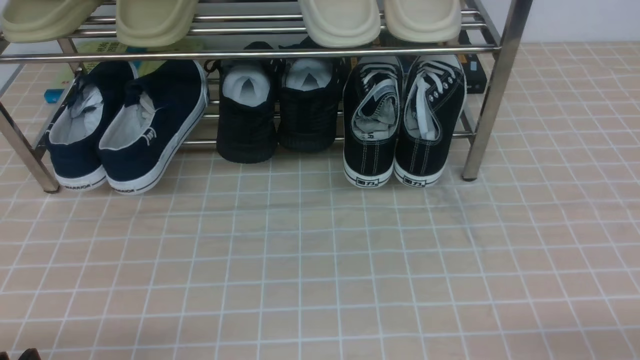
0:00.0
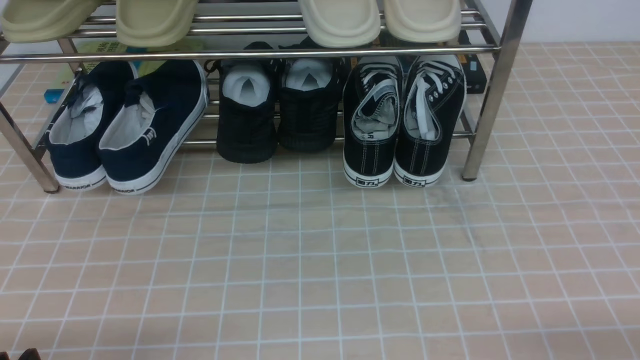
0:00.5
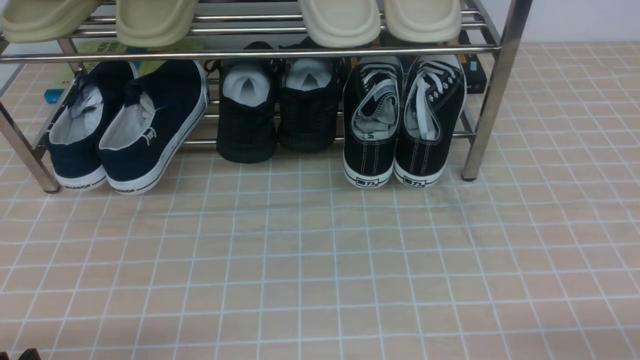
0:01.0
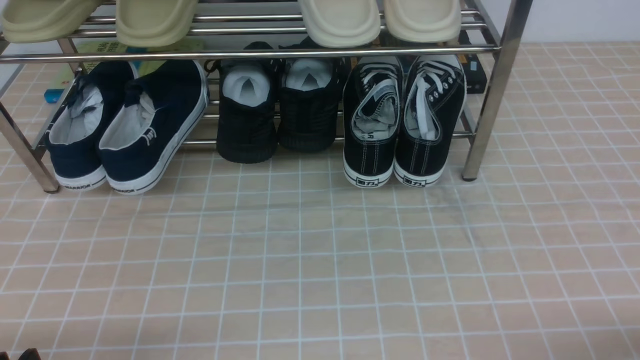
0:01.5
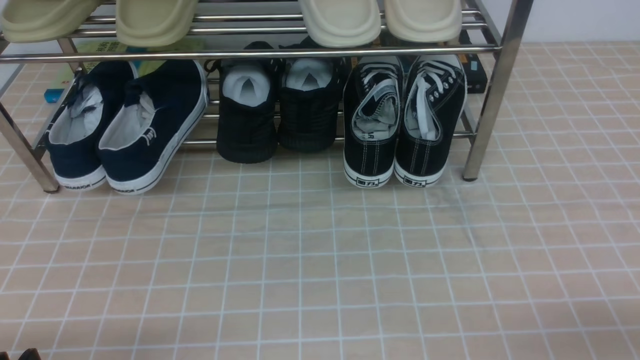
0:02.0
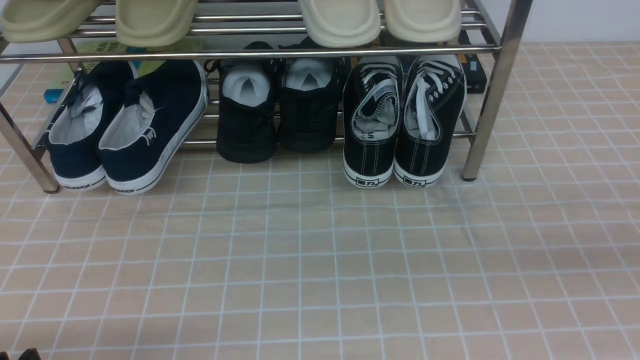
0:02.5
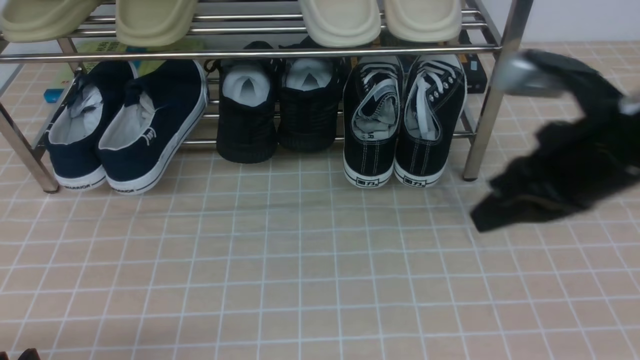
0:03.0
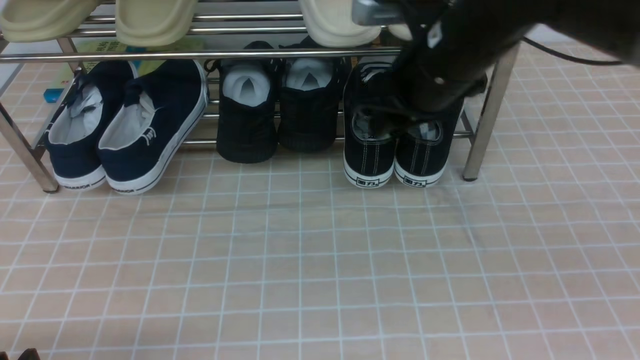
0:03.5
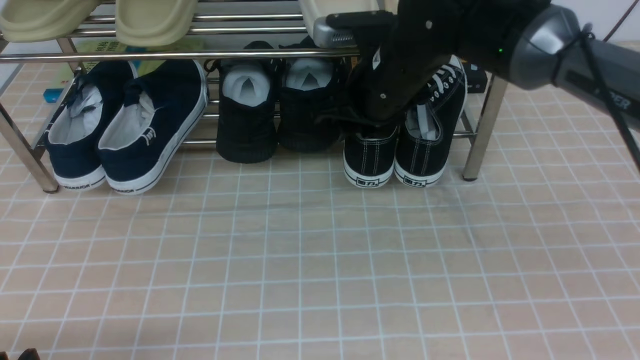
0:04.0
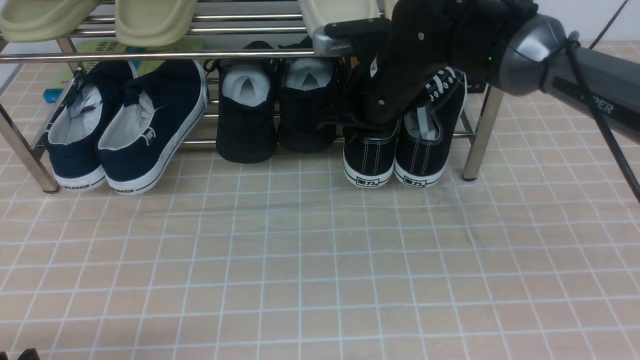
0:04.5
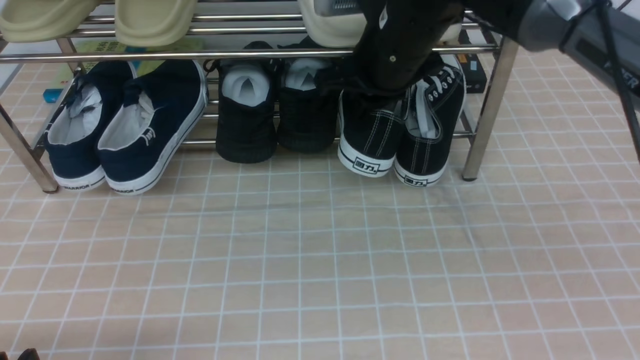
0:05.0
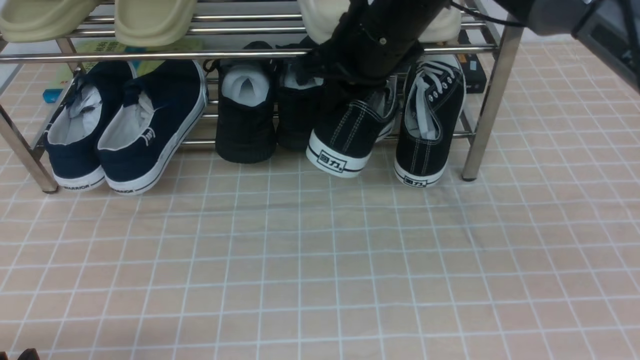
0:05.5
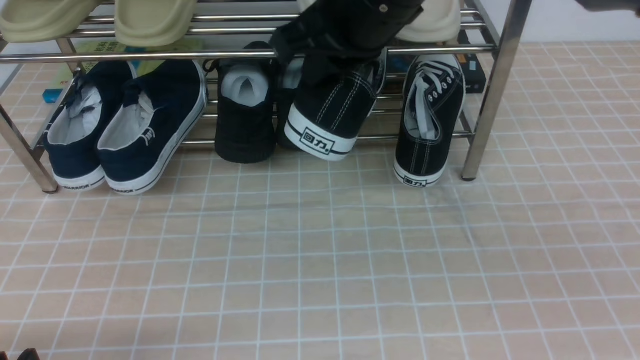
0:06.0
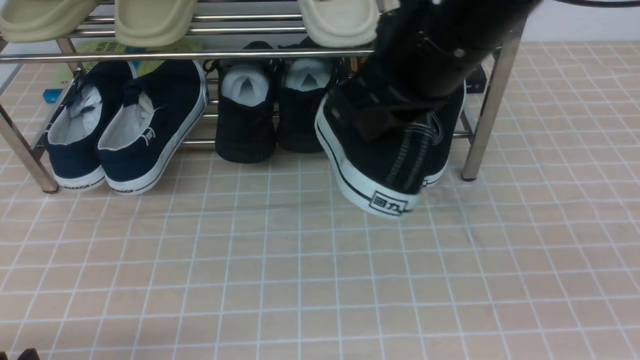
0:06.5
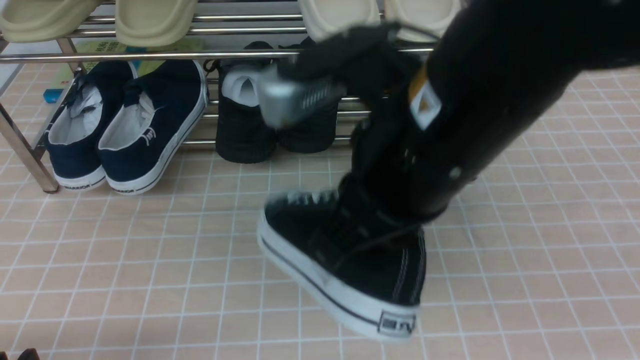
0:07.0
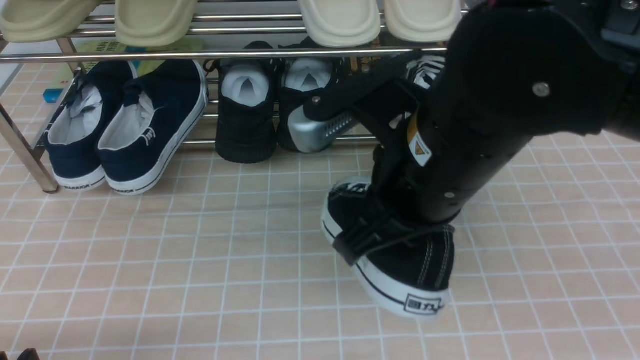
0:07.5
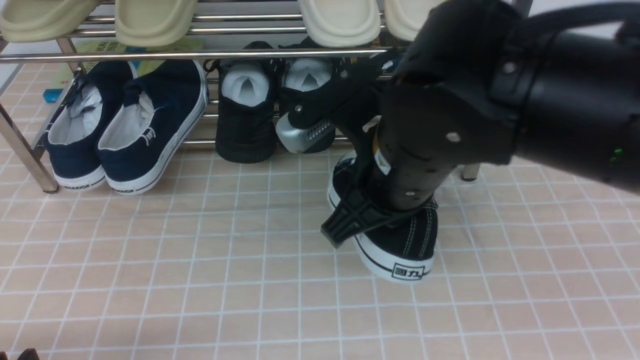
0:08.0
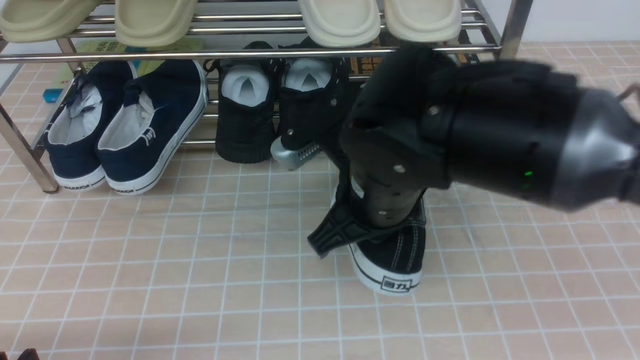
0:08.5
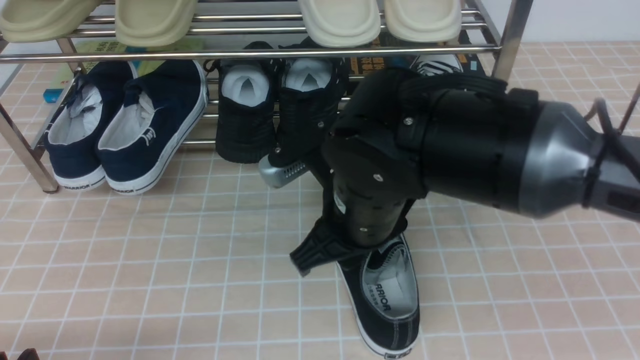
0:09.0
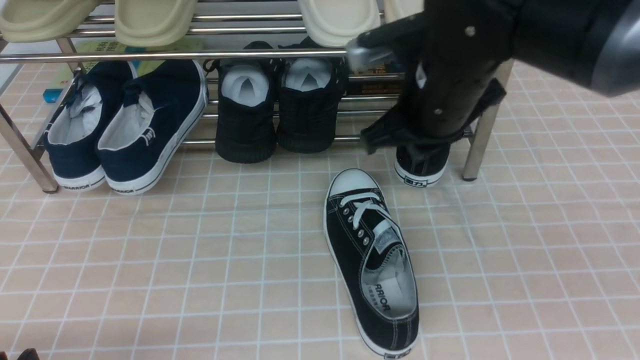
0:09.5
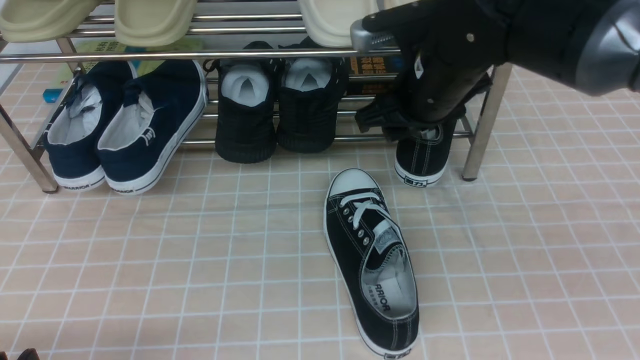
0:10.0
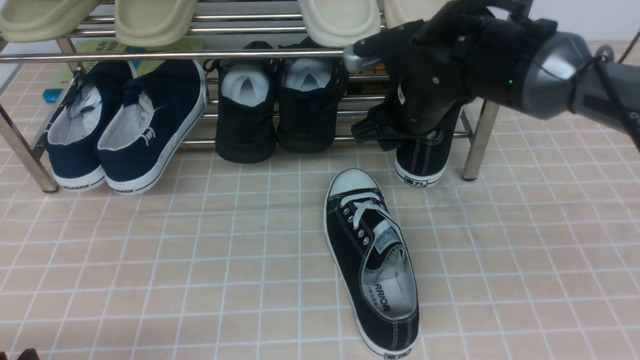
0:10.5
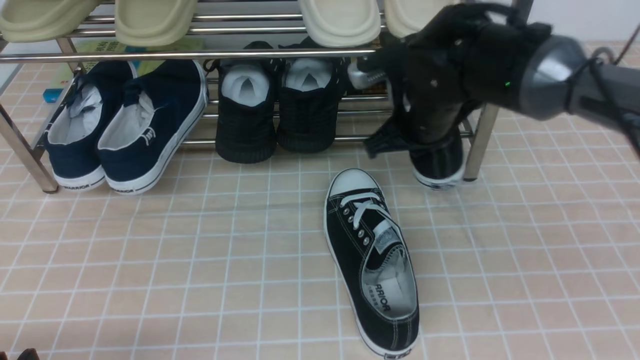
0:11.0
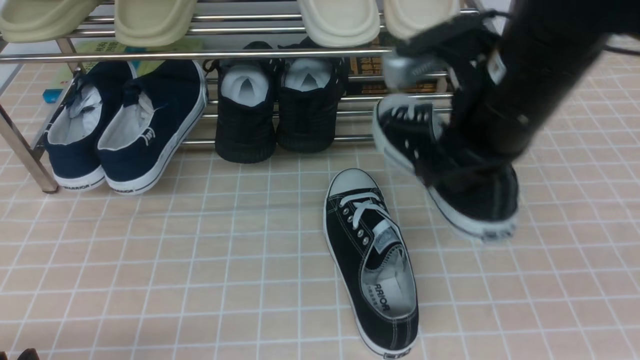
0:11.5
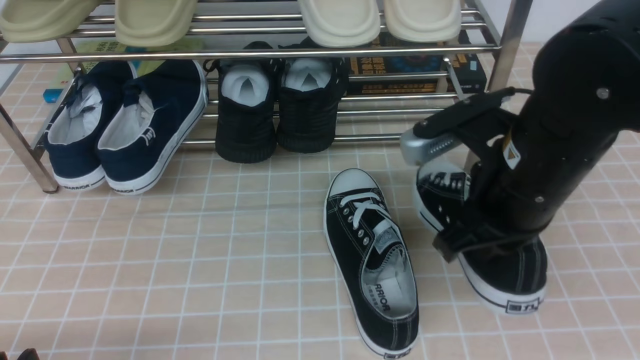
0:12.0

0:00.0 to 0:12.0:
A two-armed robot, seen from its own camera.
Step, 0:00.0 to 0:04.5: use the right arm to clamp a shoe on the right side of the shoe rack.
Step, 0:05.0 to 0:09.0: use the right arm to take out the clamped shoe from the shoe rack and put it down.
Step, 0:09.5 to 0:10.5: use the right arm to clamp a shoe on the right side of the shoe rack.
0:02.0 to 0:04.0: The right gripper travels forward and to the left by roughly 40 cm, and opens up.
0:04.0 to 0:06.0: The right gripper shifts about 10 cm upward and backward, and closes up.
0:06.0 to 0:08.0: The right gripper travels backward and downward by approximately 10 cm.
0:08.0 to 0:10.0: The right gripper heads forward, covering about 15 cm, and opens its fingers.
0:10.0 to 0:12.0: The right gripper shifts about 10 cm backward, and closes its fingers.

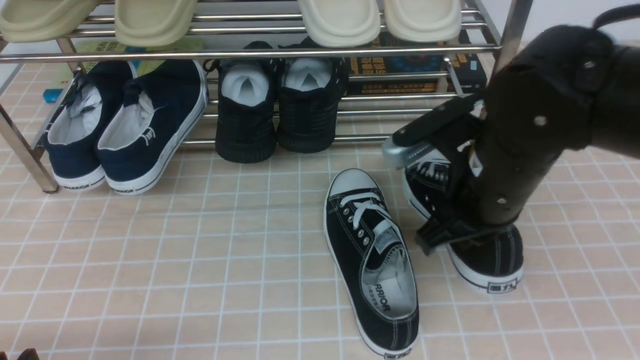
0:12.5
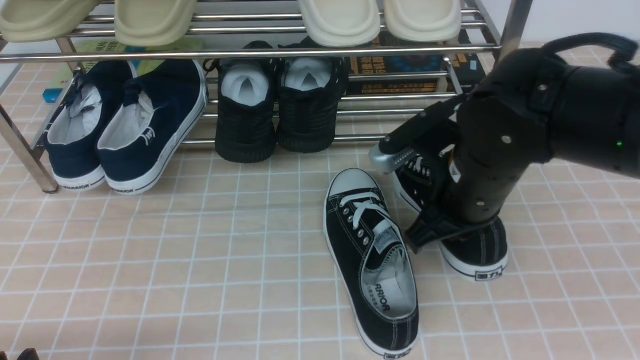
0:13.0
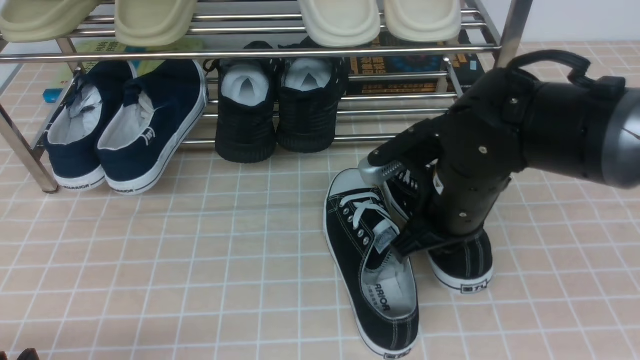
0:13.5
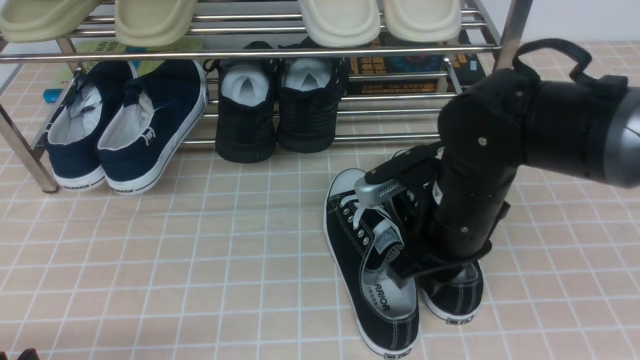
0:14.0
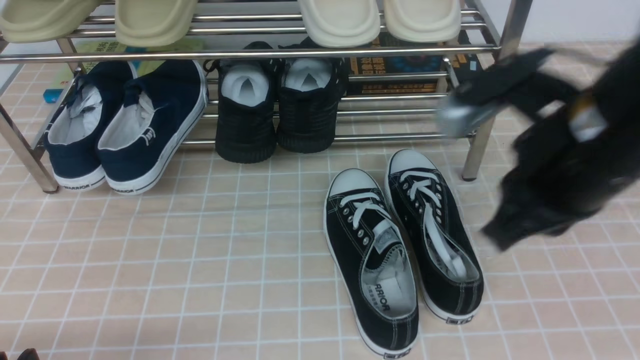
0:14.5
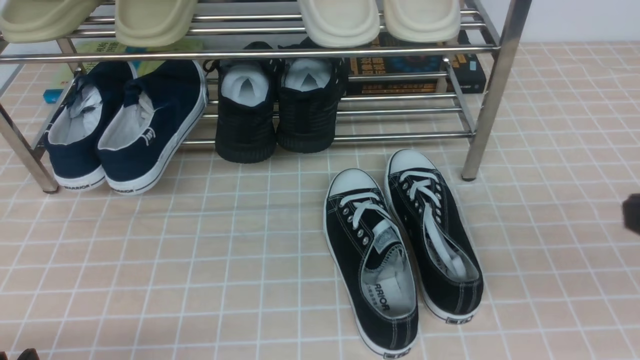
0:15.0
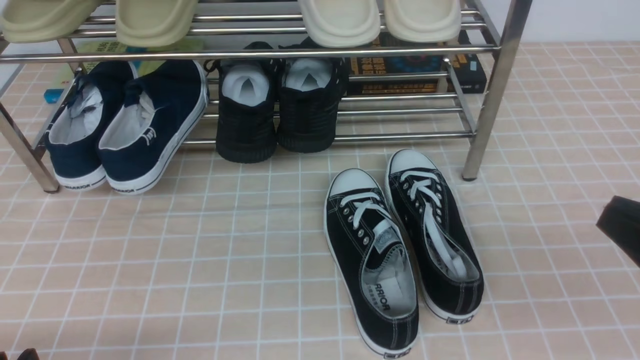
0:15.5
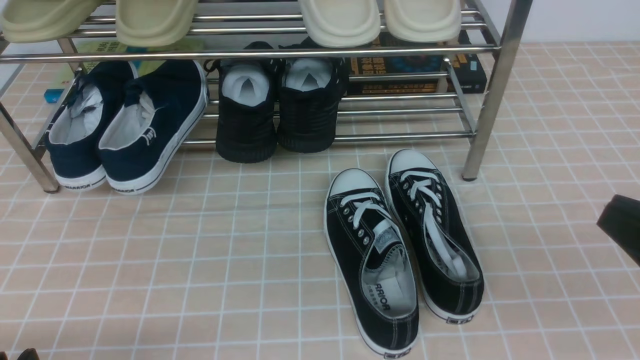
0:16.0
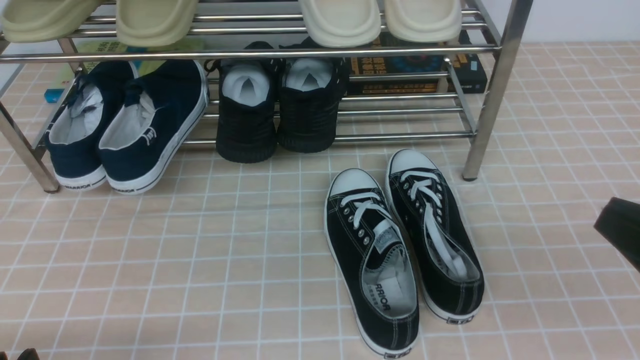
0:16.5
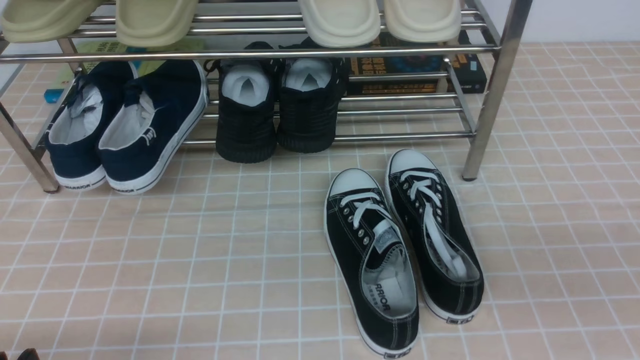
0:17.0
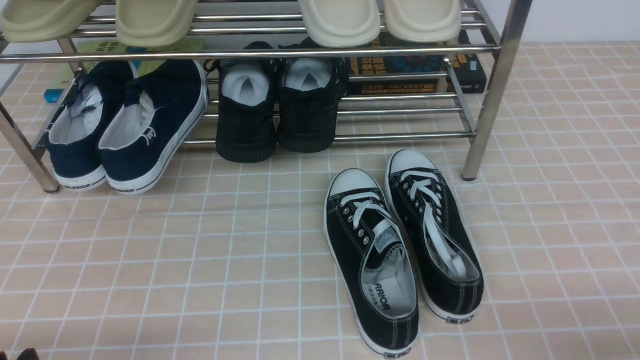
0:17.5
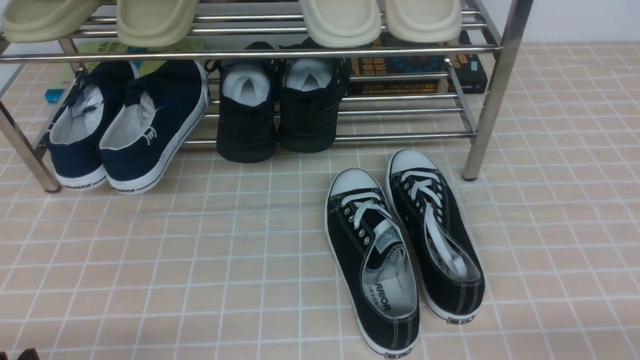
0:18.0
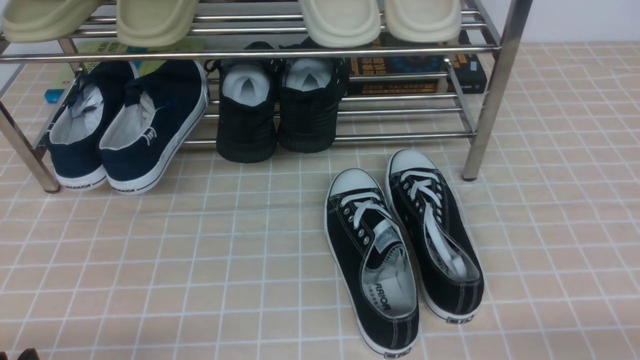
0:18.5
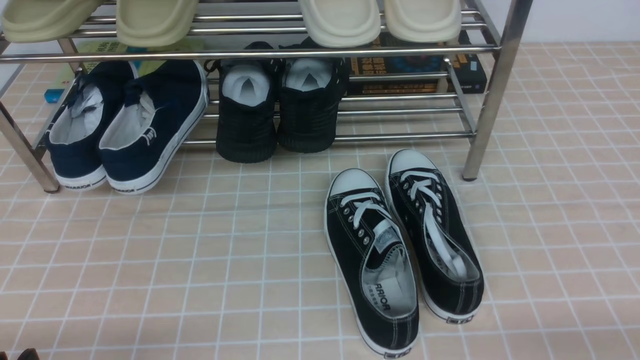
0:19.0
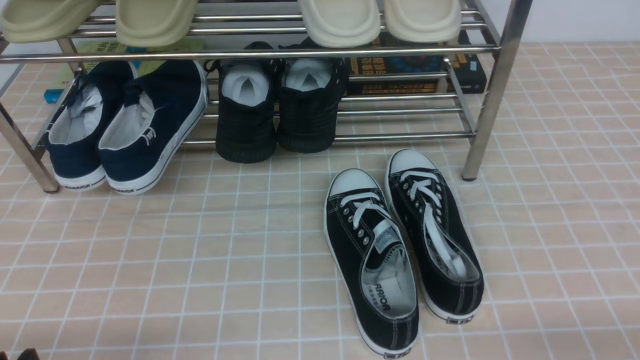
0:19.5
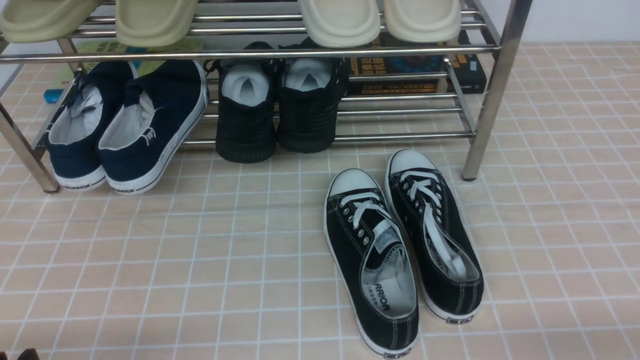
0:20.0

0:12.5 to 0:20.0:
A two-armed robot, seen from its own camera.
0:12.5 to 0:14.5: The right gripper moves roughly 5 cm.
0:14.5 to 0:16.5: The right gripper goes roughly 20 cm backward and to the right.
0:16.5 to 0:18.0: The right gripper goes roughly 15 cm downward and to the right.
0:18.0 to 0:20.0: Both grippers stay about where they are.
